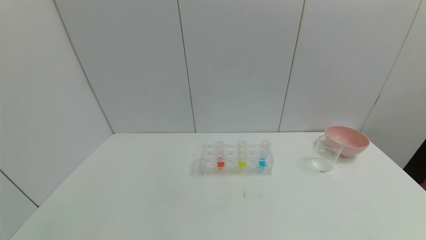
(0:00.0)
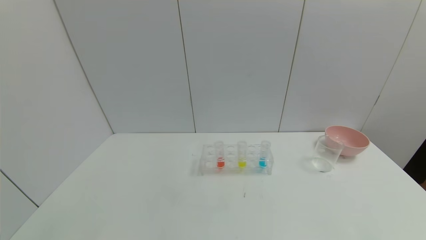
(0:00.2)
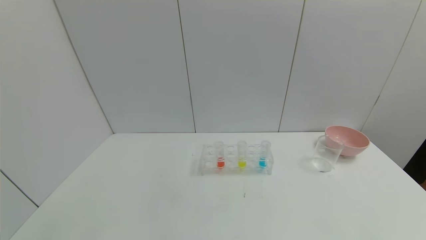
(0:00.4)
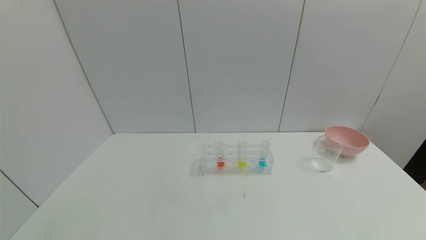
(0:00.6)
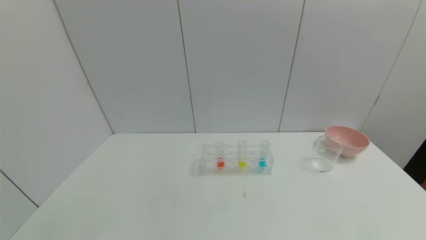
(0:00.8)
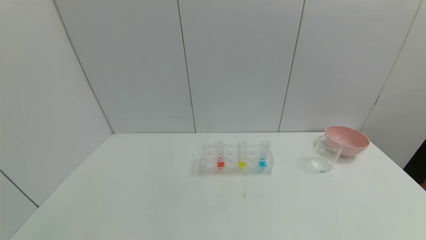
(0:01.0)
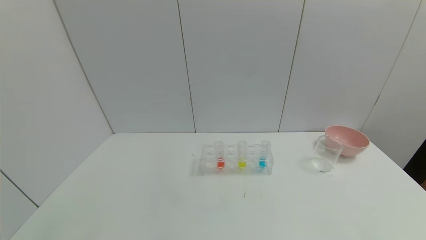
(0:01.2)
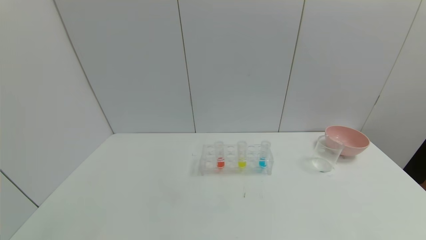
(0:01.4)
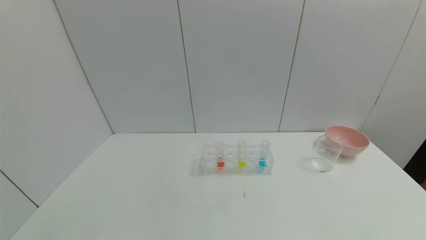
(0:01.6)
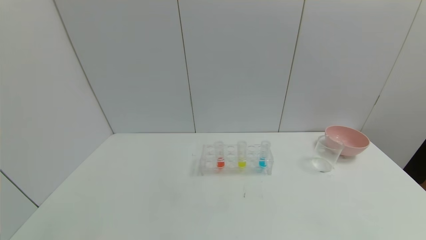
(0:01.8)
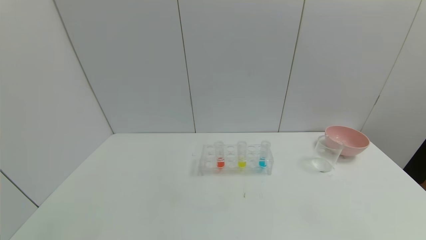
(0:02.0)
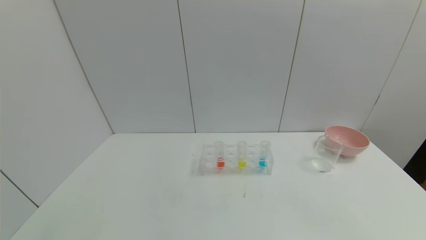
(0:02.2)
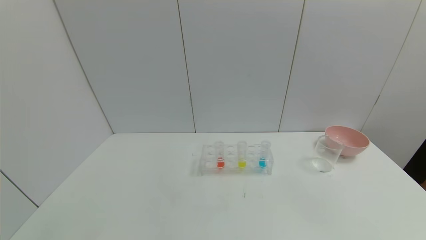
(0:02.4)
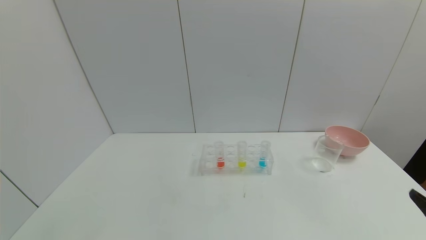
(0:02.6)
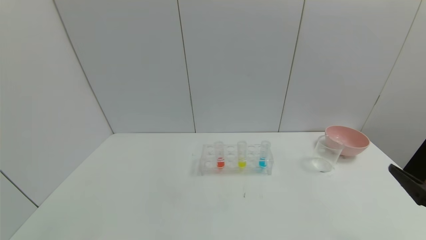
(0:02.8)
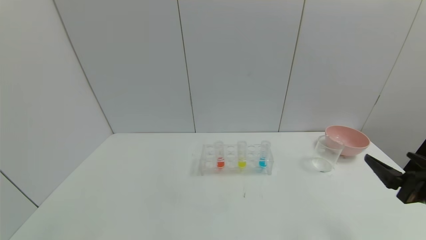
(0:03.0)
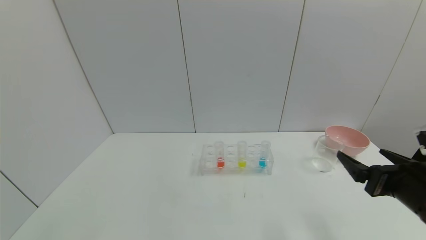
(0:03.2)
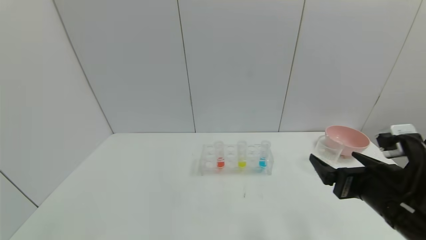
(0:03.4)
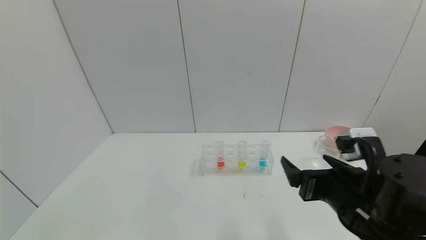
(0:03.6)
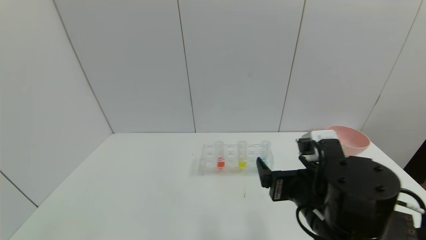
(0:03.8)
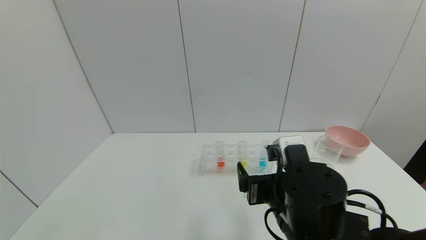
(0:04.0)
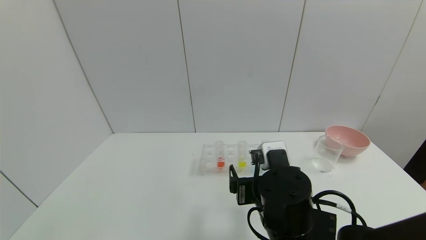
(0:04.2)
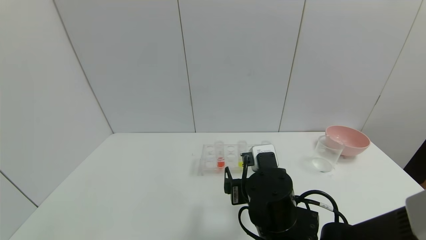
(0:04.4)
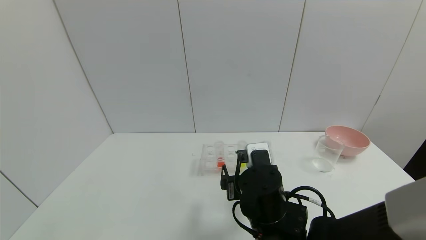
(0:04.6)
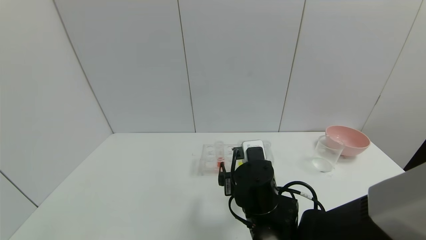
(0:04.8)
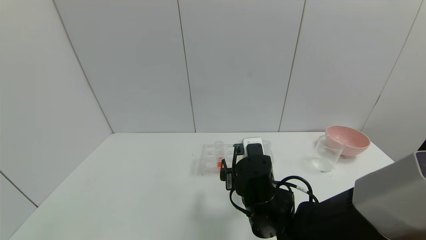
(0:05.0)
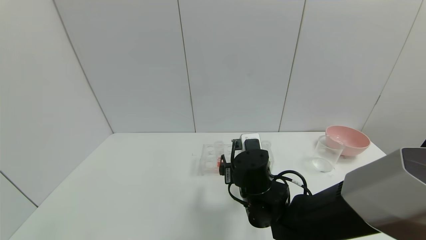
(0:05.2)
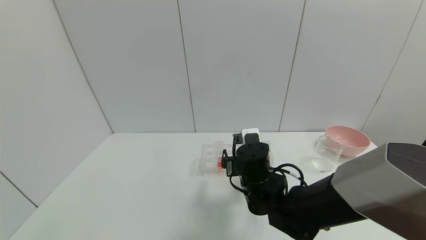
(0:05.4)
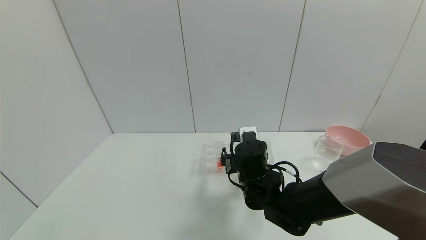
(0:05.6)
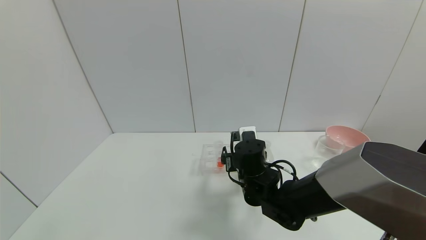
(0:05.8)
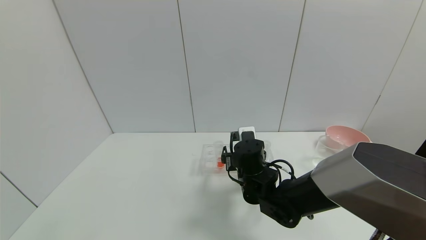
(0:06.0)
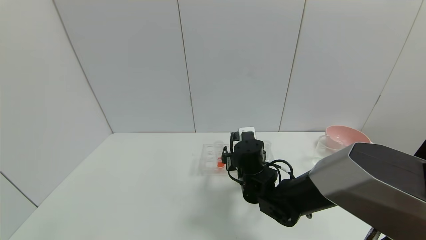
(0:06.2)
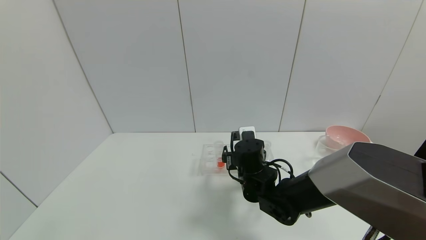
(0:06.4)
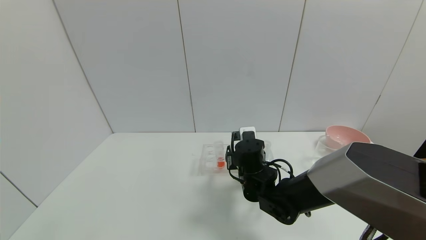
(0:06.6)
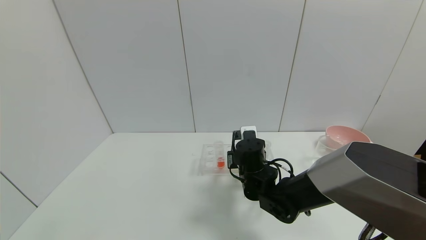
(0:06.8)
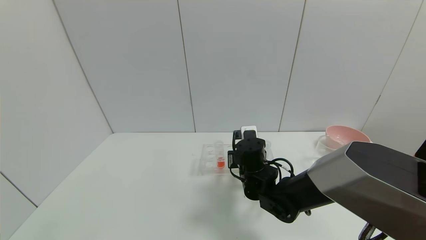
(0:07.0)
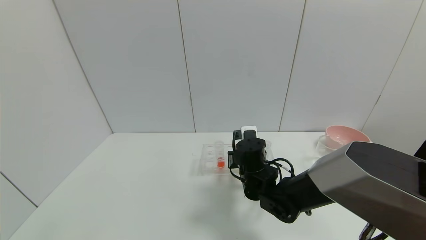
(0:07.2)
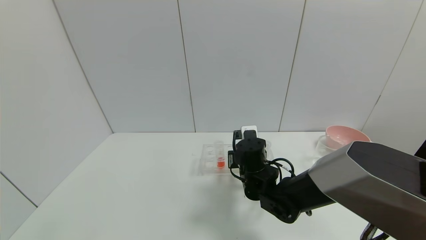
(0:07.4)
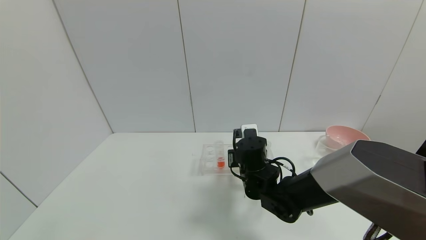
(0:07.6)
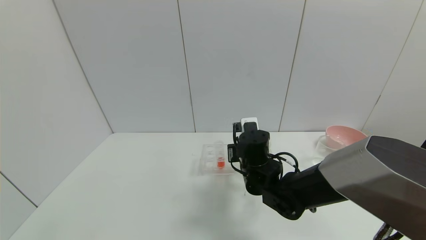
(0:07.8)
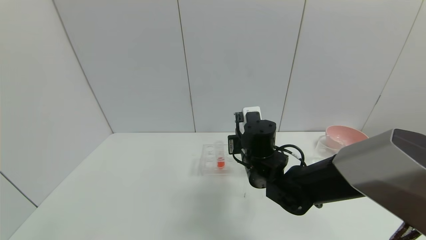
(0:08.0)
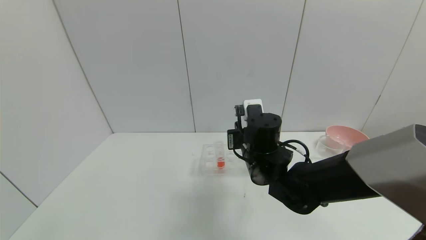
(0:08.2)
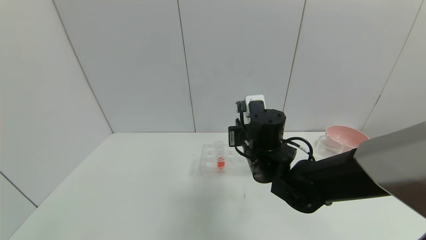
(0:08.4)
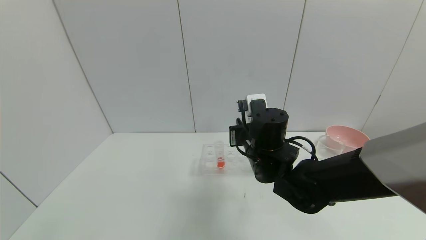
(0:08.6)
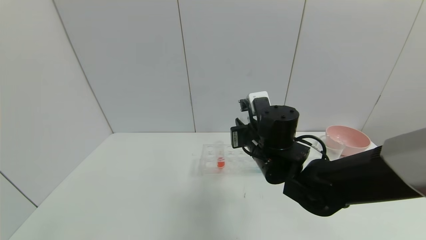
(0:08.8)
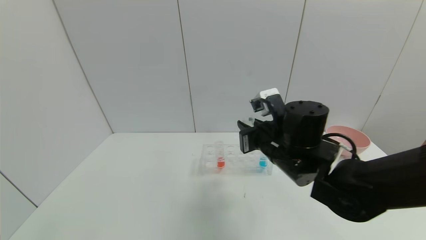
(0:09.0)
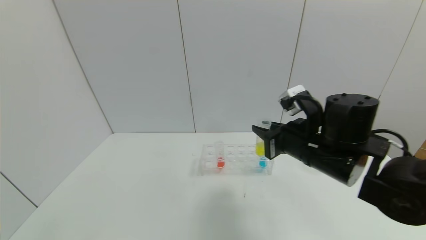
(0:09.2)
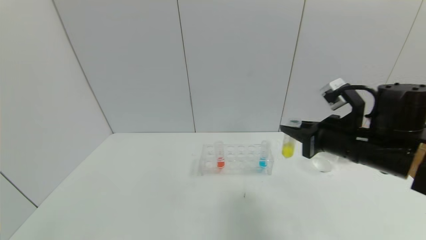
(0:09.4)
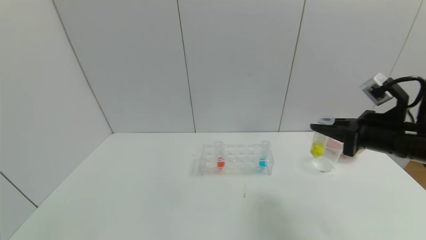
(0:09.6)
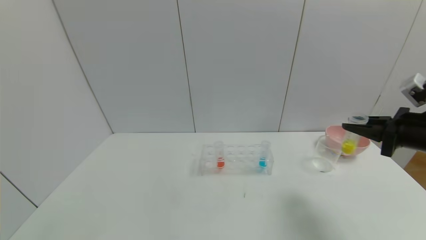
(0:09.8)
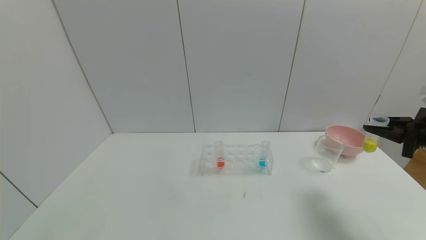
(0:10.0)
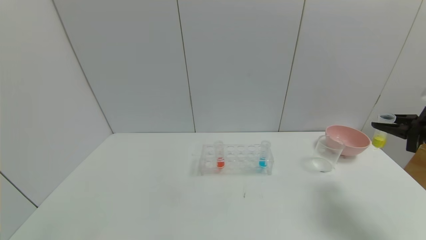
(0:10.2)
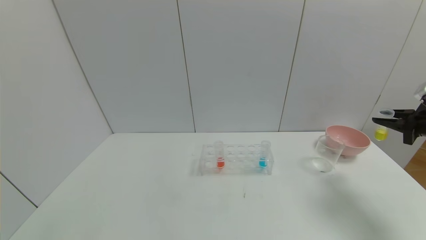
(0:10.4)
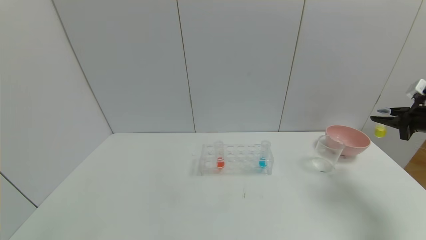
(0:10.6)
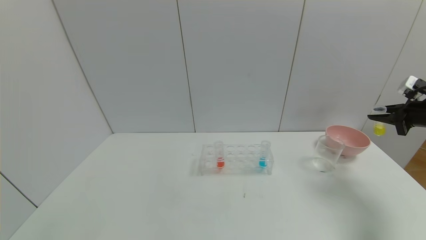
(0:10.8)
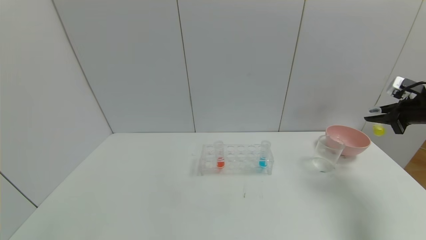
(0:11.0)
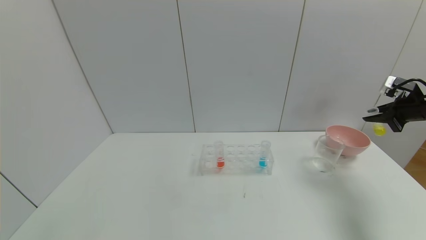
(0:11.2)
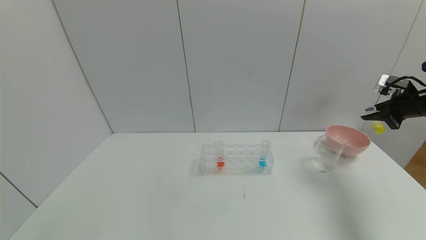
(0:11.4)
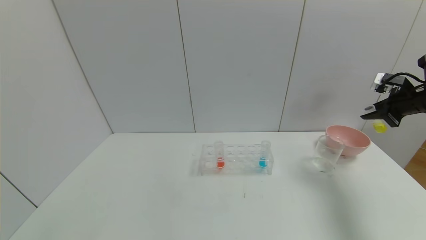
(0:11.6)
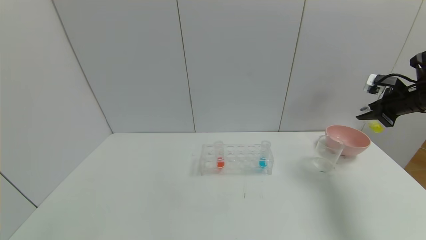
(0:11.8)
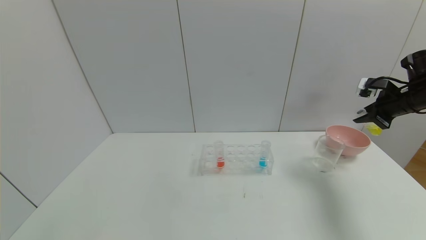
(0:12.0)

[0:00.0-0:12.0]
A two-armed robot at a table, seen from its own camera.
Task of the whole recording: pick up the test tube with yellow pigment and the test tube with blue pigment by grippers and pour them into the beaker.
Step, 0:00.0 to 0:07.2: Grasp the yellow reagent with the right gripper.
0:00.0 to 0:01.6: Both grippers stay about where they are.
0:01.6 to 0:03.0: The right gripper shifts some 20 cm forward and upward.
0:03.0 to 0:04.4: The right gripper is displaced to the left by roughly 25 cm.
0:04.4 to 0:06.0: The right gripper shifts some 10 cm forward.
0:06.0 to 0:07.6: The right gripper closes up.
0:07.6 to 0:09.0: The right gripper travels upward and to the right by about 10 cm.
0:09.0 to 0:10.4: The right gripper shifts approximately 35 cm to the right.
0:10.4 to 0:12.0: The right gripper goes about 10 cm forward.

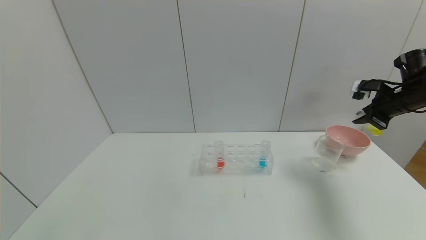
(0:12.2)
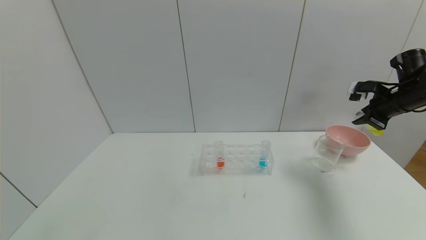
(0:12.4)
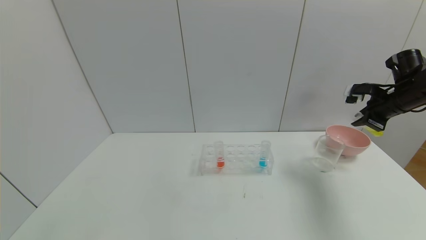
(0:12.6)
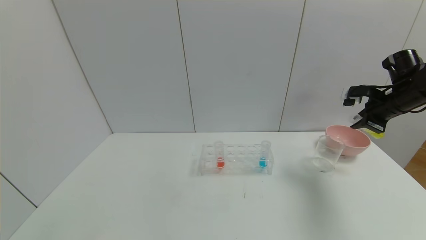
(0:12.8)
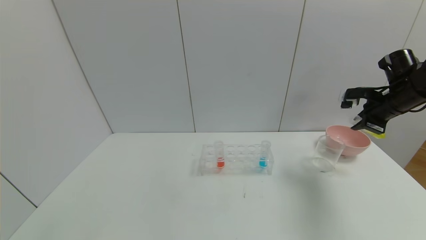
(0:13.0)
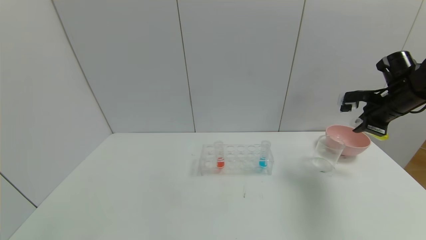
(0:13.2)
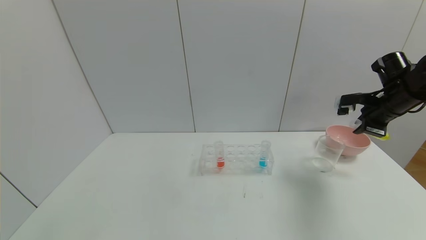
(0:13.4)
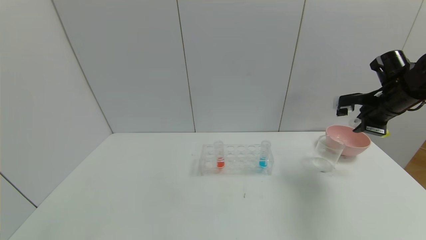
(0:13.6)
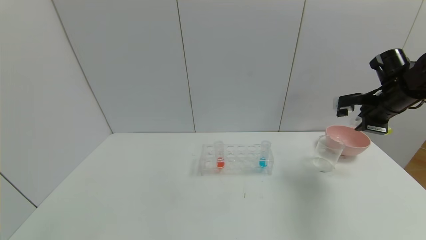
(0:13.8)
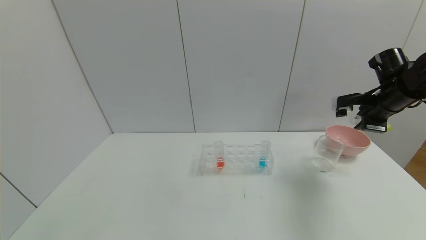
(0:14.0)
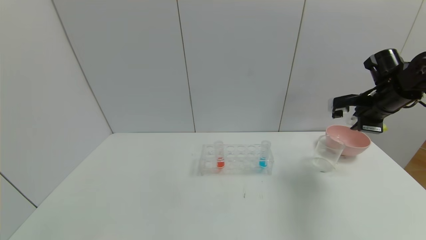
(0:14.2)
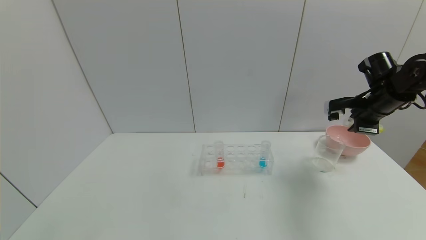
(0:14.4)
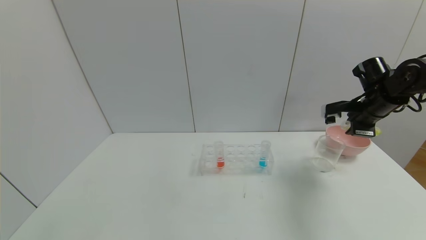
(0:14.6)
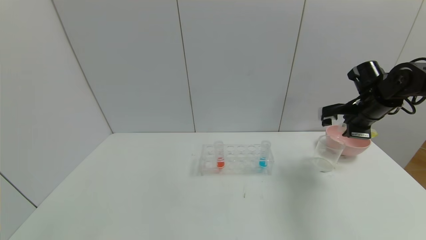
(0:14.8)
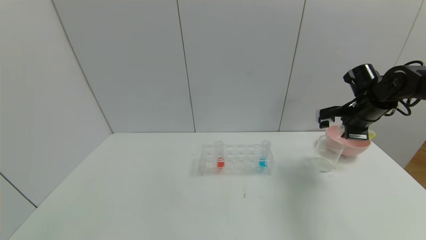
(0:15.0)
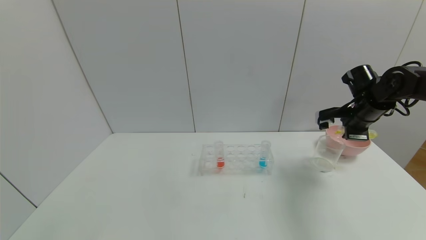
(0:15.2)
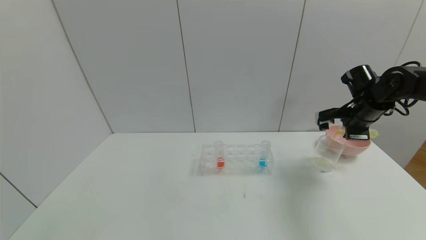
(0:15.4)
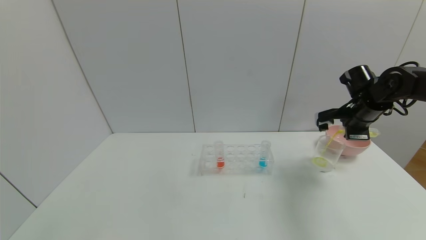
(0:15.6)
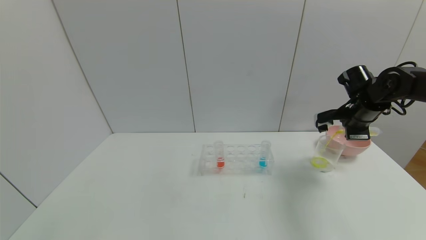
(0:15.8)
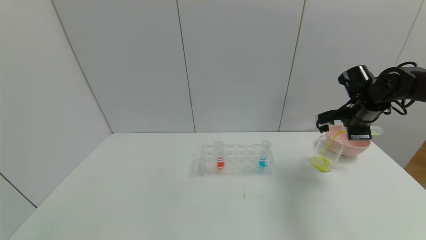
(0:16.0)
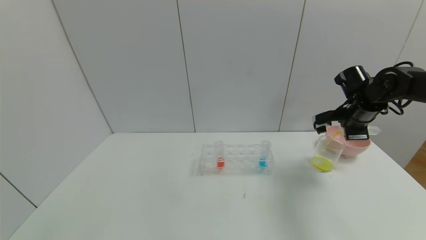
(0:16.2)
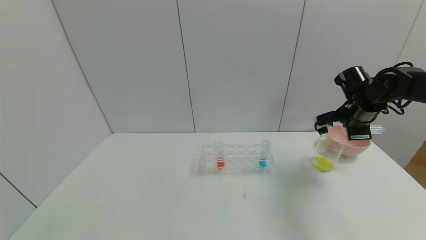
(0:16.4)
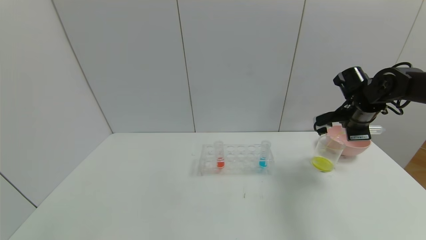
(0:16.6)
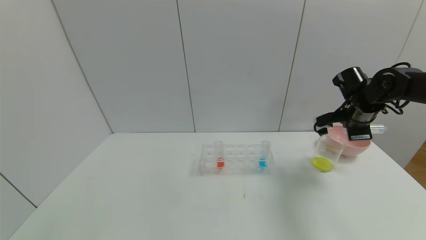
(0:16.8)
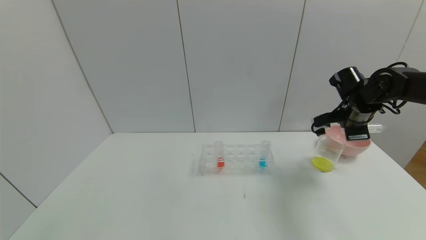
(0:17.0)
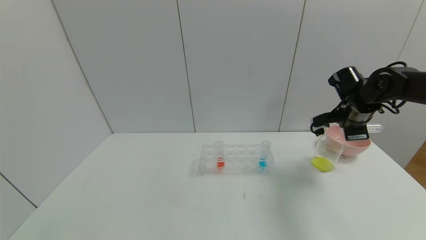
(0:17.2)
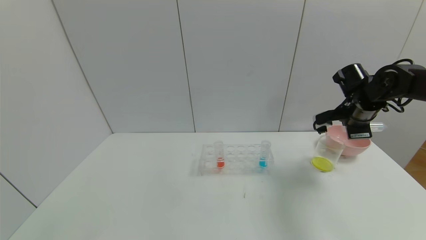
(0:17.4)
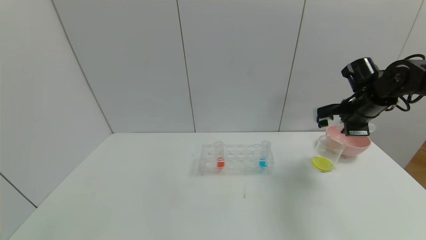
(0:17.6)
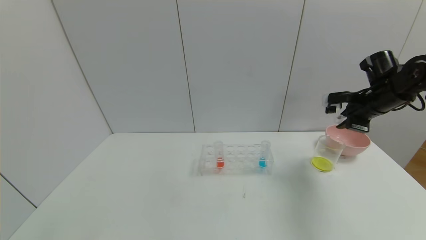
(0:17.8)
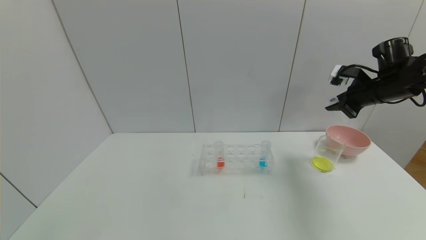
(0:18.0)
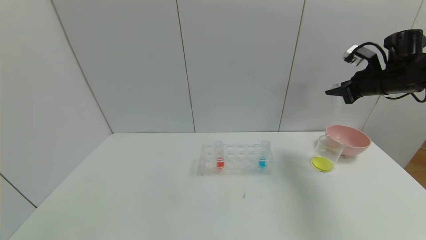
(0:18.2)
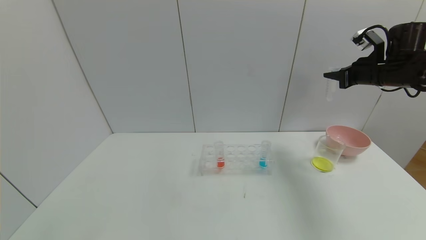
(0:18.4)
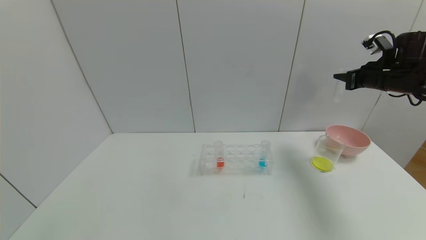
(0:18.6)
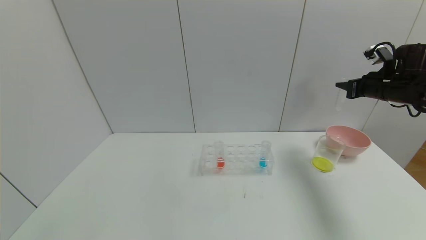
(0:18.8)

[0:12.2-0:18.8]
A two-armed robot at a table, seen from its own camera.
Task of the whole recording: pick up the test tube with yellow pigment and the test tube with blue pigment by grippers and pour them into the beaker.
Step, 0:12.2 to 0:16.8: Pour the yellow reagent into the graduated cylinder with the right gripper.
0:12.2 to 0:13.8: The right gripper moves to the left, some 5 cm.
0:13.8 to 0:15.4: The right gripper changes place by about 5 cm.
0:15.4 to 0:17.2: The grippers make only small movements.
0:17.2 to 0:18.8: The right gripper moves to the right, approximately 10 cm.
